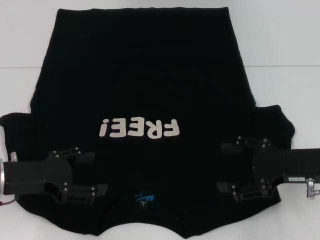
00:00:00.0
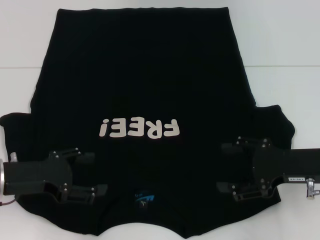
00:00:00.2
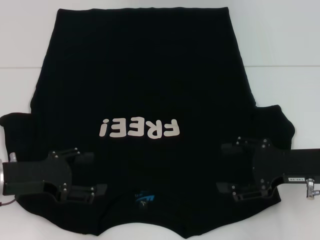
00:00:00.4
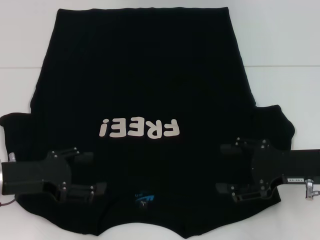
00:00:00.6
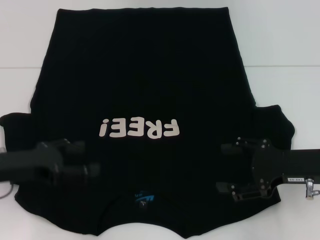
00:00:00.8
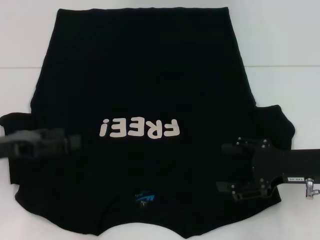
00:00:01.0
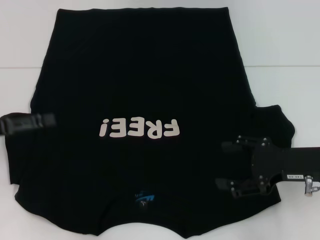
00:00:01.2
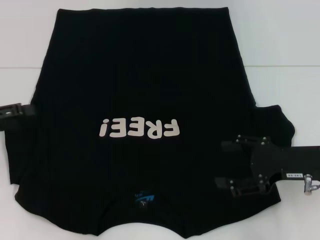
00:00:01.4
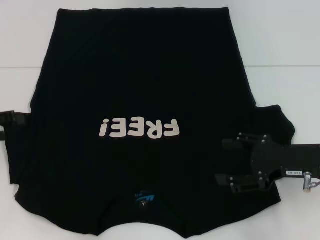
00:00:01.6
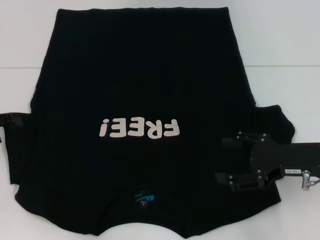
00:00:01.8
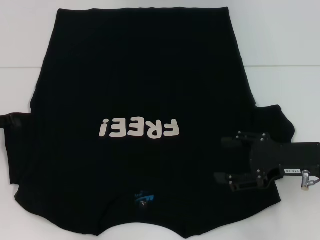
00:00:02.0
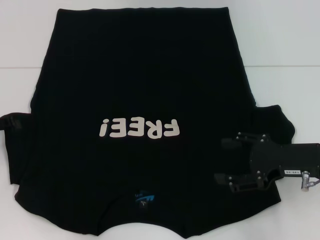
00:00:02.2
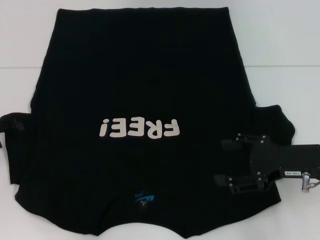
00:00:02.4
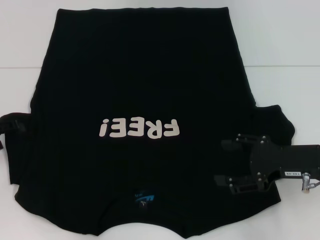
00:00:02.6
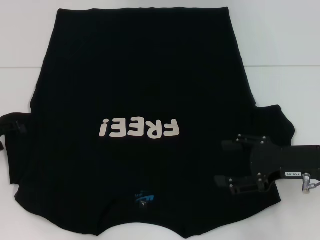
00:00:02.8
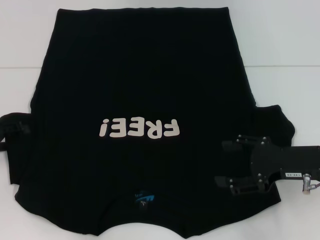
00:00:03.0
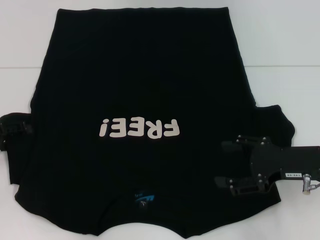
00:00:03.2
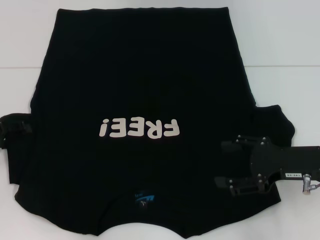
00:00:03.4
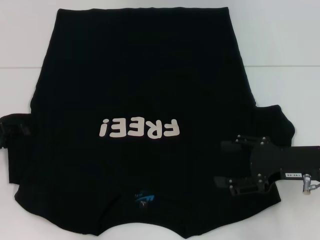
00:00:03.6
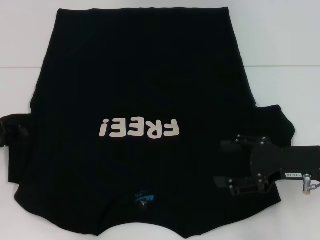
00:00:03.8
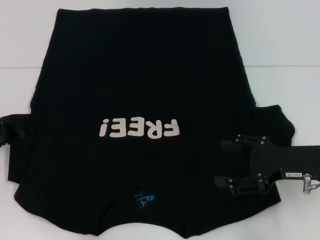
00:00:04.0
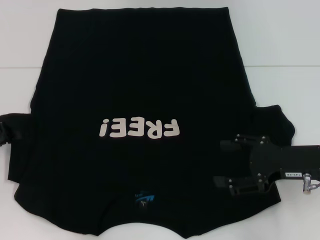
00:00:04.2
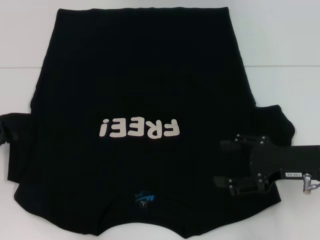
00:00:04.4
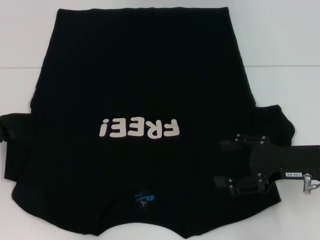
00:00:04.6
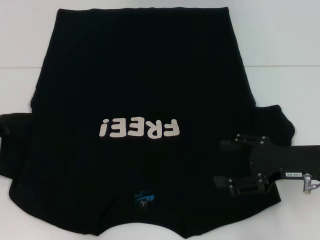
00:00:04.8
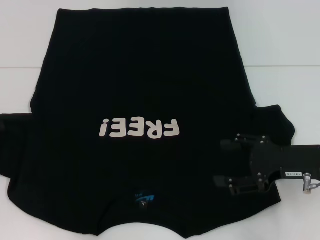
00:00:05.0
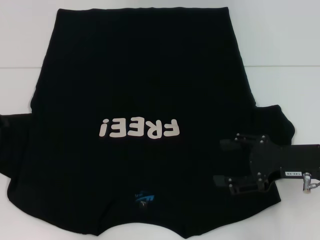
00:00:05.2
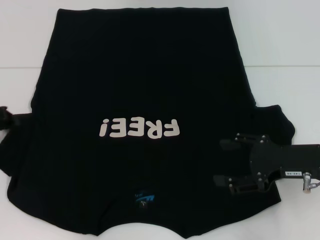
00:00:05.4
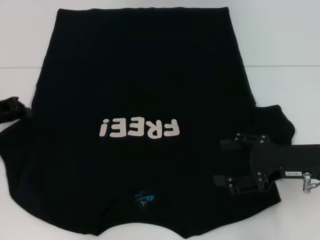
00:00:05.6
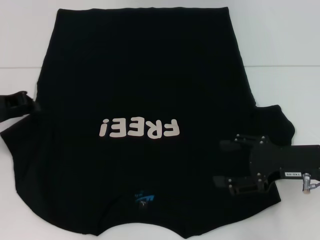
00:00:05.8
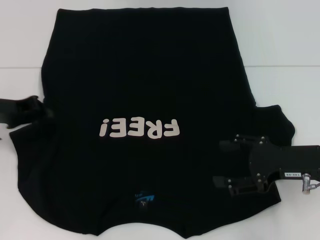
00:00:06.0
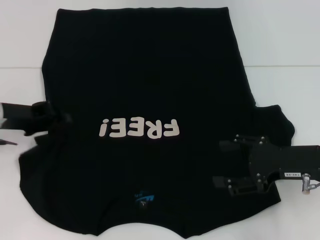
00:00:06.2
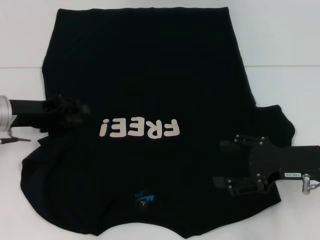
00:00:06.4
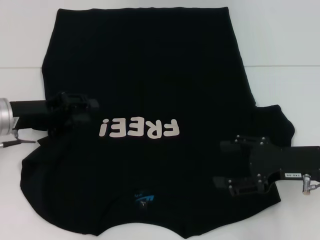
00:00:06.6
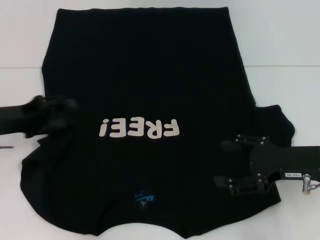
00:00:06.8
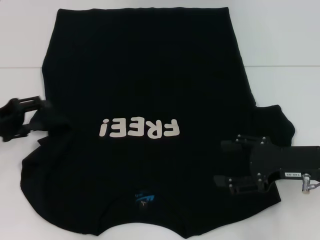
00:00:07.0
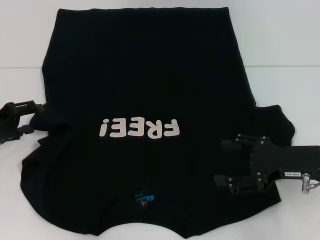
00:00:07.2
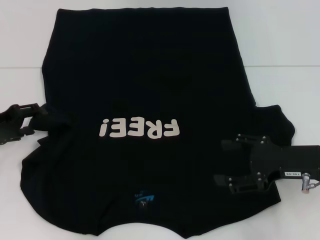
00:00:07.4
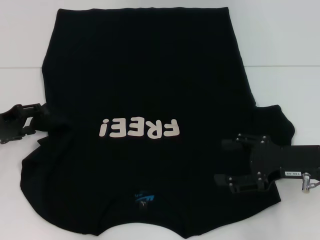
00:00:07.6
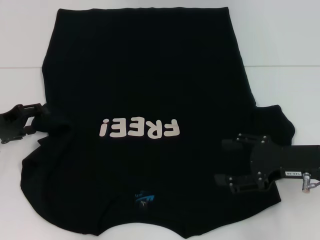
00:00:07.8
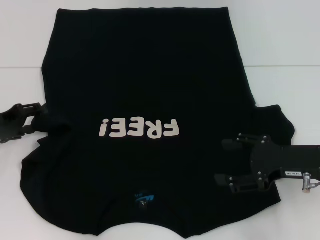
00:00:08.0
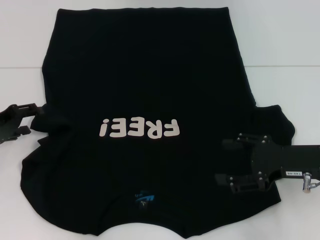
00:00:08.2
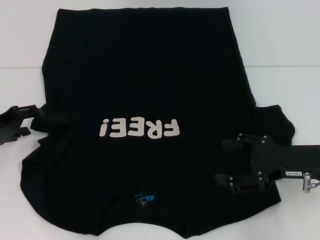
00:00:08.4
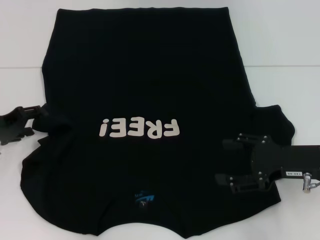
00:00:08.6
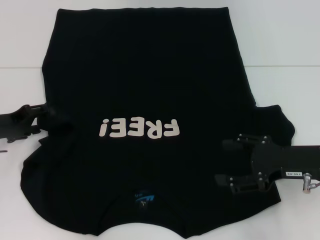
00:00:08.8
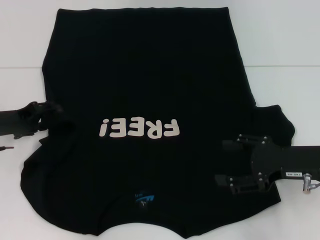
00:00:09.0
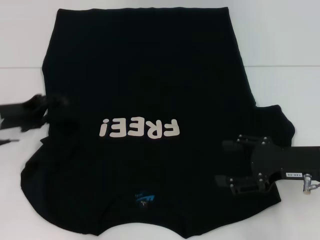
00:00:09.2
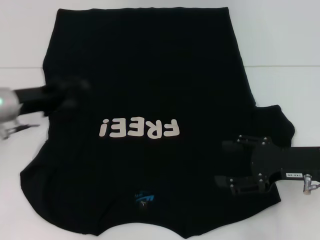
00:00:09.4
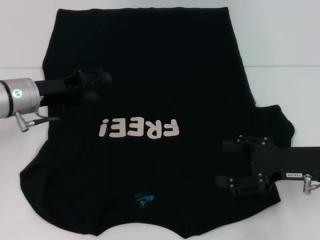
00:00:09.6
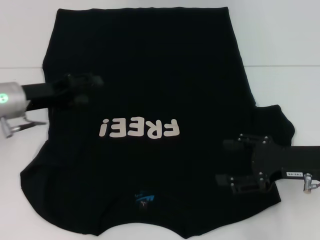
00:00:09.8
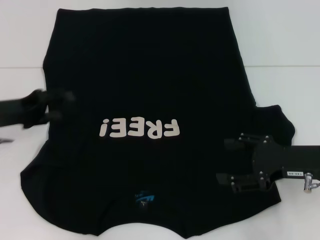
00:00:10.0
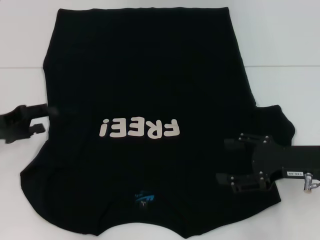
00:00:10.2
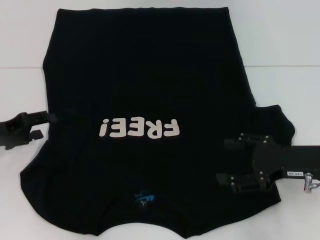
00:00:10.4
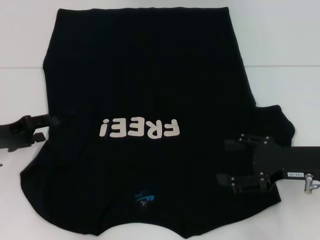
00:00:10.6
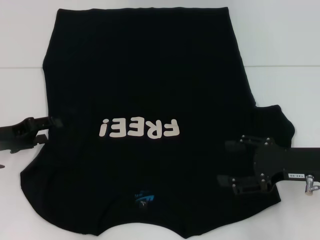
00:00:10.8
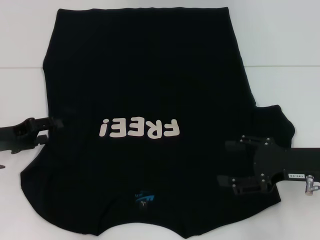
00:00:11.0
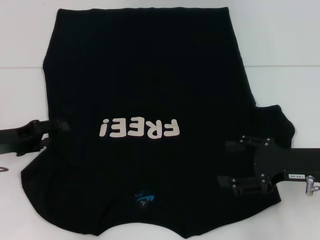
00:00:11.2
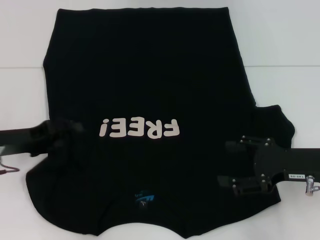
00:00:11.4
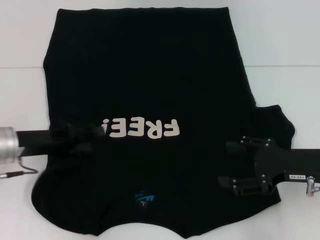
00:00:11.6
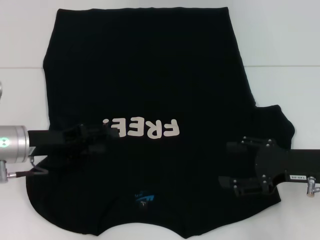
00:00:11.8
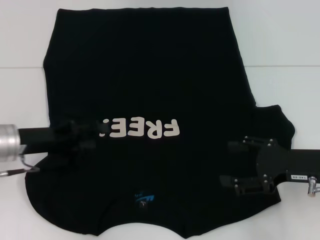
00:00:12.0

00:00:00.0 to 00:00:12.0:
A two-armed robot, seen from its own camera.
Step, 00:00:00.0 to 00:00:06.4: Fold the bottom left sleeve with your left hand.
00:00:00.0 to 00:00:01.6: The left gripper moves to the left, about 10 cm.
00:00:01.6 to 00:00:03.0: There are only small adjustments of the grippers.
00:00:04.4 to 00:00:06.0: The left gripper moves to the right, roughly 5 cm.
00:00:06.0 to 00:00:07.6: The left gripper shifts by approximately 5 cm, and opens its fingers.
00:00:07.6 to 00:00:09.0: The grippers stay close to where they were, moving slightly.
00:00:09.0 to 00:00:10.4: The left gripper reaches roughly 5 cm to the right, then returns.
00:00:10.4 to 00:00:12.0: The left gripper shifts some 5 cm to the right.

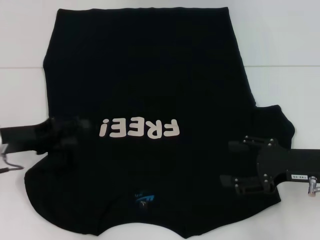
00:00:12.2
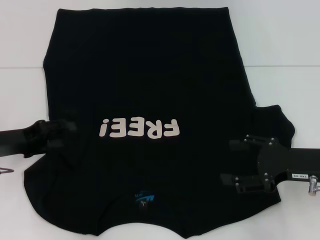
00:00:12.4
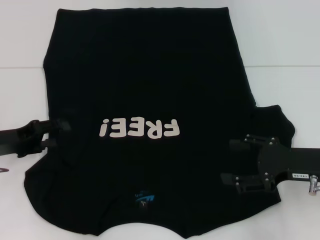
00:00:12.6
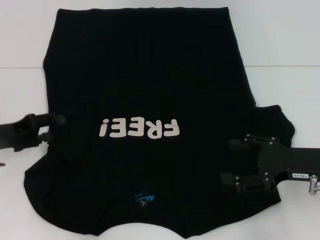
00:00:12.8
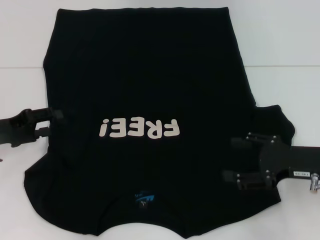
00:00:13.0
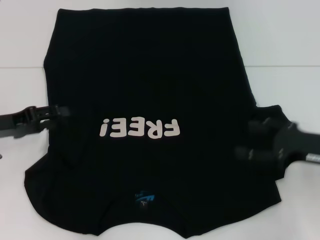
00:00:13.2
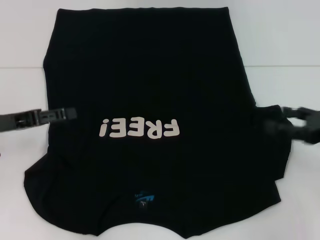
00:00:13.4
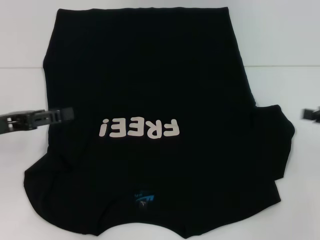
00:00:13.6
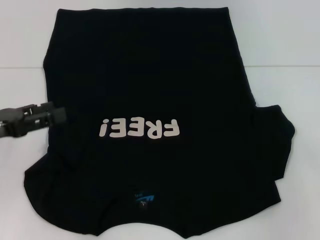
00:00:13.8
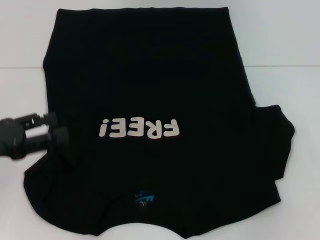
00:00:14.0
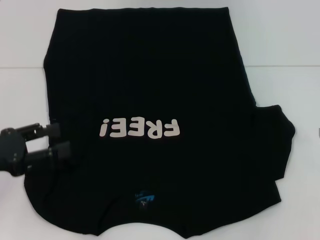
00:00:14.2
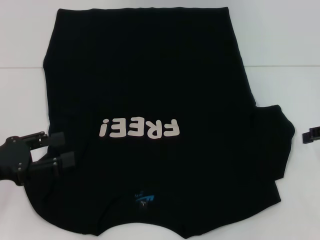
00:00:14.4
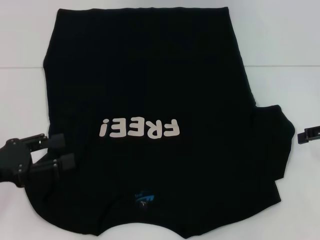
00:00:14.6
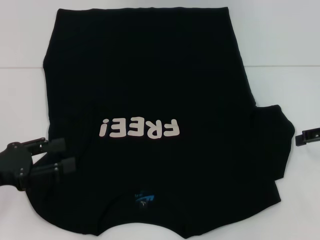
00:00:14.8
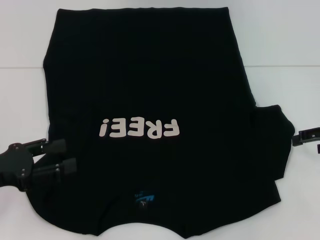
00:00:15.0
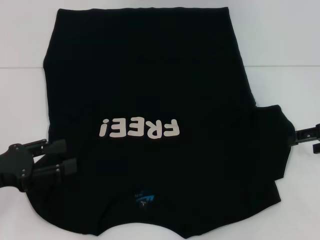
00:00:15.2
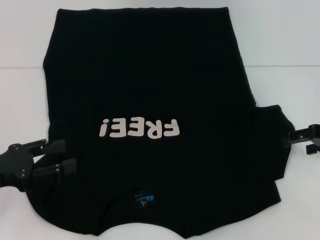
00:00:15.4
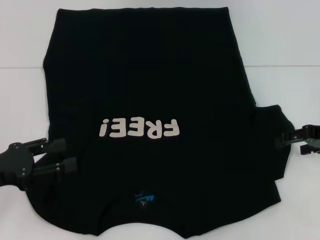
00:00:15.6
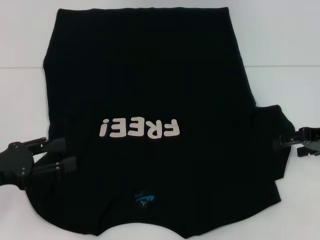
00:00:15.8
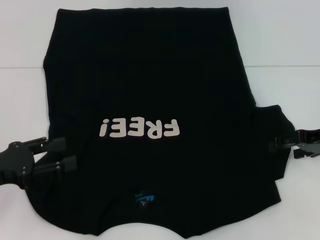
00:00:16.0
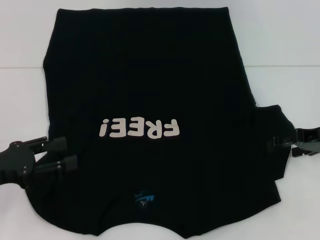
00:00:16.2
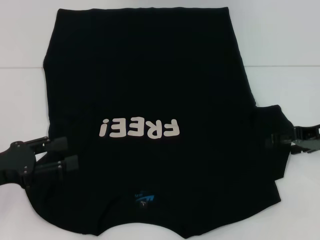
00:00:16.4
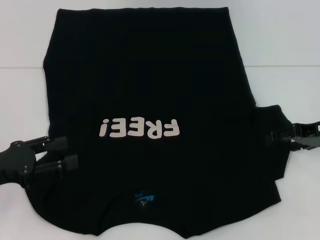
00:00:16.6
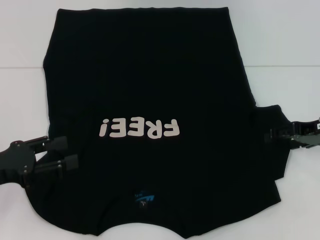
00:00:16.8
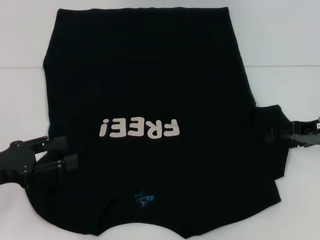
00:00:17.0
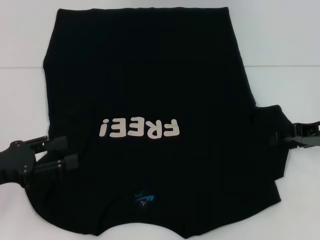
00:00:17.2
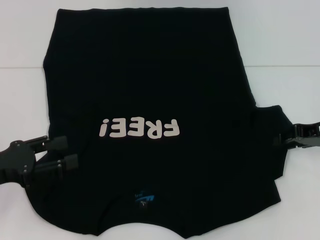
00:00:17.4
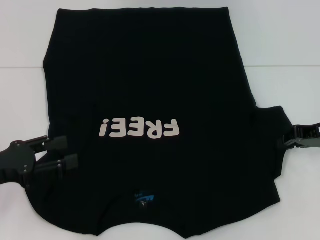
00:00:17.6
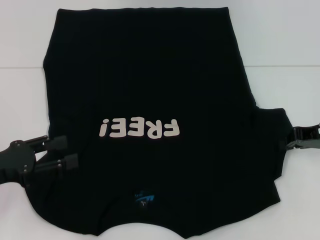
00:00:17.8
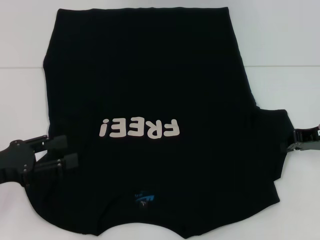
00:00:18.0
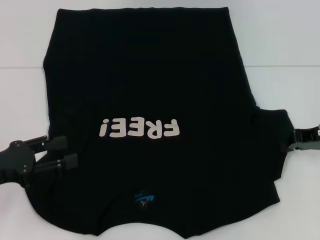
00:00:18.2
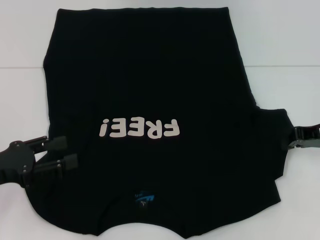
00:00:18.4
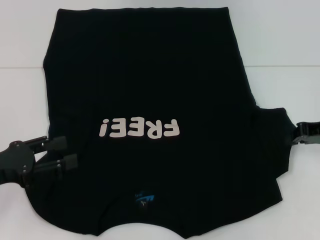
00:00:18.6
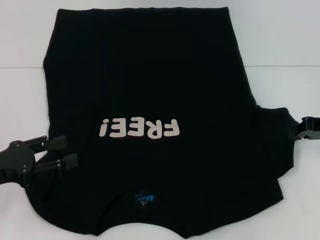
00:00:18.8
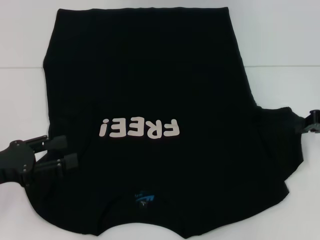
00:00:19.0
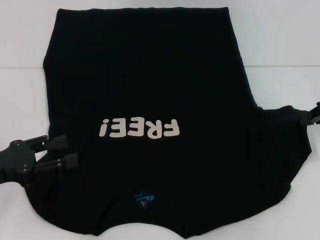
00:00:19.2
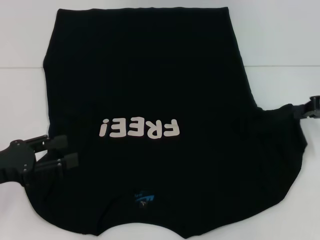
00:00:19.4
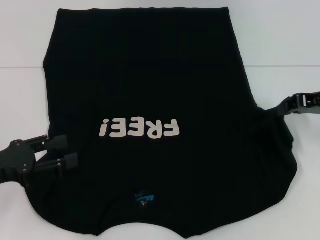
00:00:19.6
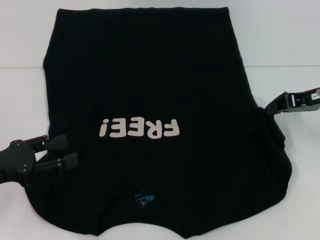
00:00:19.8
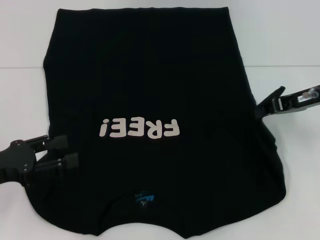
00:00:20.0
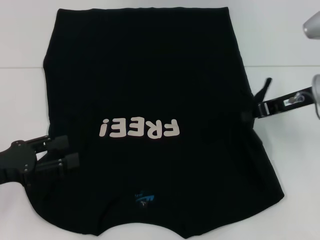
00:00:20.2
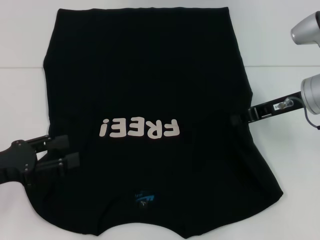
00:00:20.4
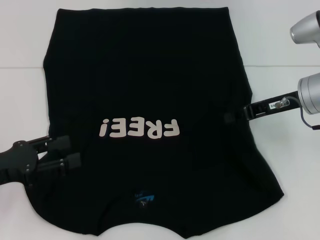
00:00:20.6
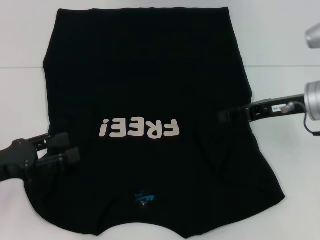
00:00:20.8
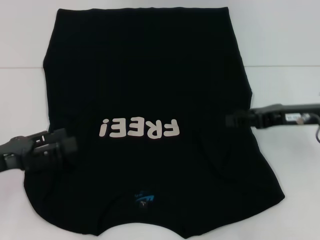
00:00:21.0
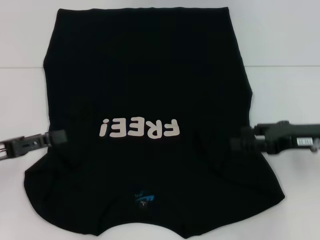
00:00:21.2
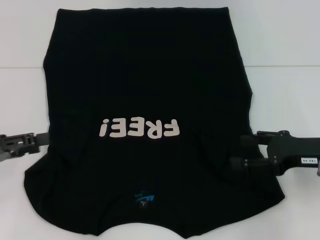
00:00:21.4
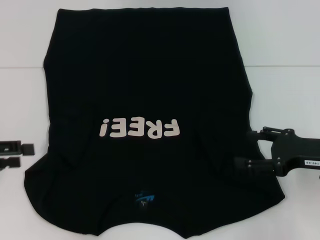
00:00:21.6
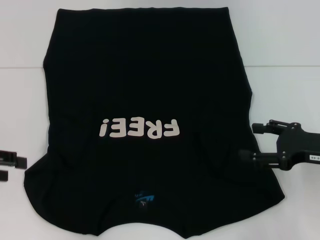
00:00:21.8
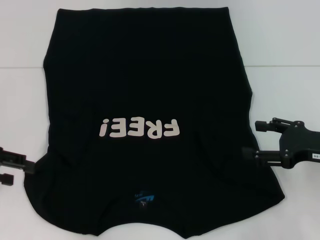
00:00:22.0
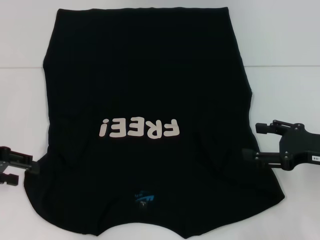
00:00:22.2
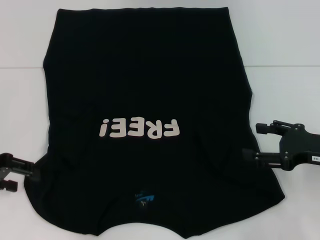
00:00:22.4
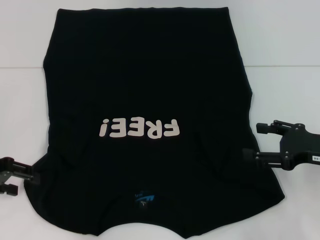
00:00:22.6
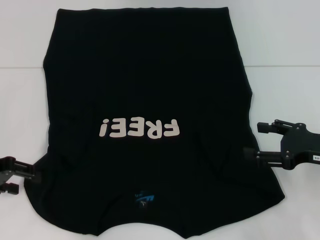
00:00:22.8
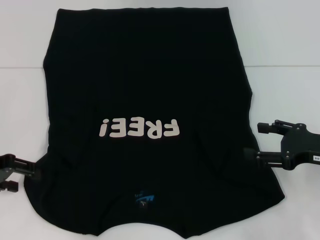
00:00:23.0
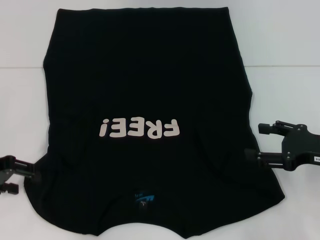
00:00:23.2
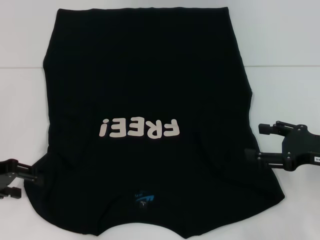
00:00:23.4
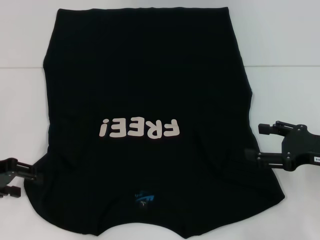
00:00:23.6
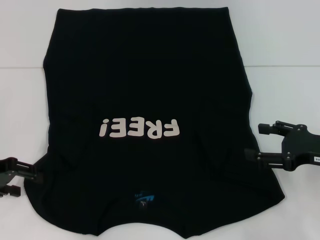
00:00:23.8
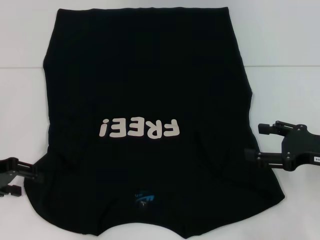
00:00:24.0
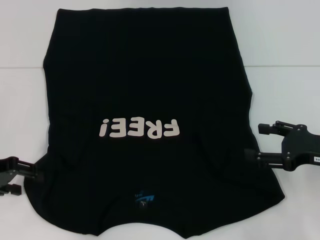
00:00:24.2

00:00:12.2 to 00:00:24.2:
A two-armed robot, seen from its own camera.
Step, 00:00:12.2 to 00:00:21.4: Fold the bottom right sleeve with your right hand.
00:00:12.2 to 00:00:13.8: The right gripper heads to the right and upward, covering some 15 cm. The left gripper shifts by approximately 5 cm.
00:00:13.8 to 00:00:15.2: The right gripper travels to the left and forward by roughly 10 cm. Meanwhile the left gripper ends up approximately 5 cm from where it was.
00:00:15.2 to 00:00:16.6: There are only small adjustments of the grippers.
00:00:16.6 to 00:00:18.2: The right gripper closes its fingers.
00:00:18.2 to 00:00:19.8: The right gripper ends up some 5 cm from where it was.
00:00:19.8 to 00:00:21.2: The right gripper shifts some 10 cm backward and downward, and opens its fingers.
00:00:21.2 to 00:00:22.6: The right gripper opens its fingers. Meanwhile the left gripper changes place by some 5 cm.
00:00:22.6 to 00:00:24.2: The grippers move only a little.
